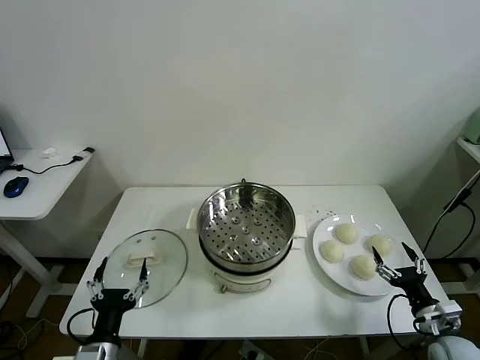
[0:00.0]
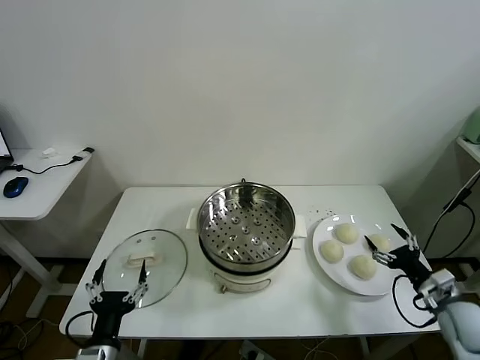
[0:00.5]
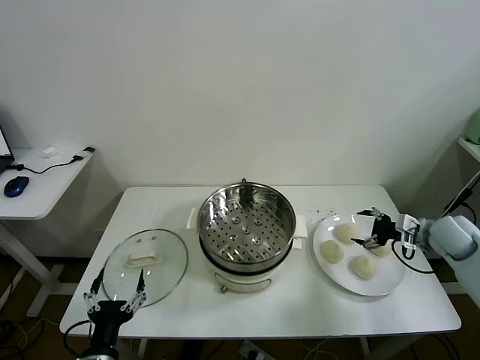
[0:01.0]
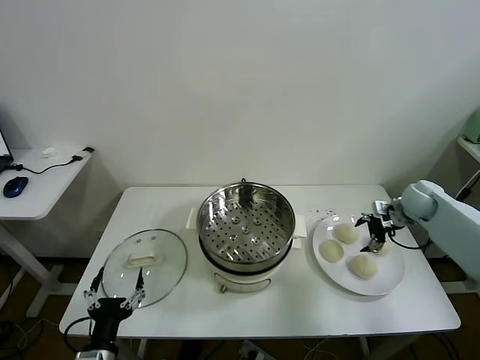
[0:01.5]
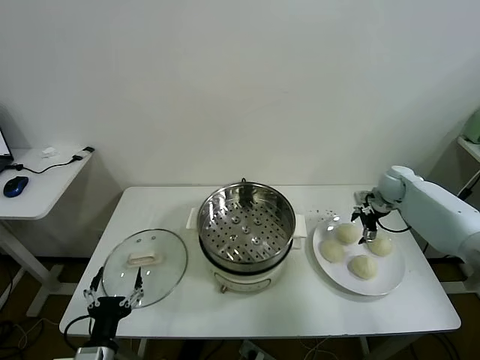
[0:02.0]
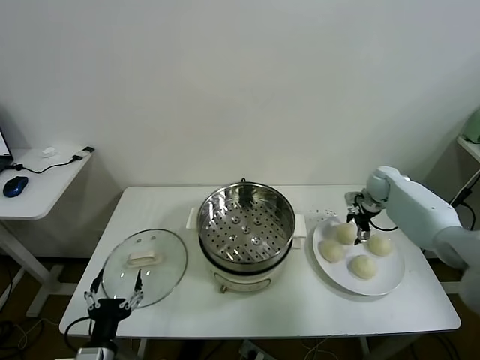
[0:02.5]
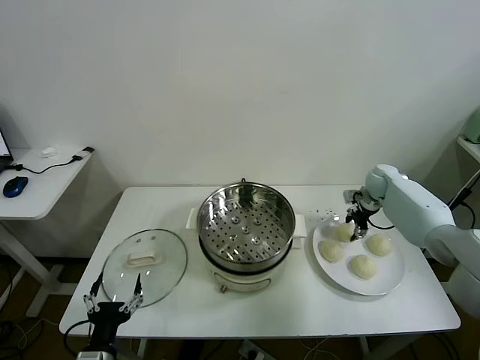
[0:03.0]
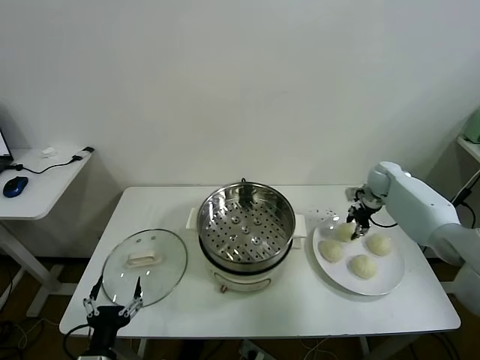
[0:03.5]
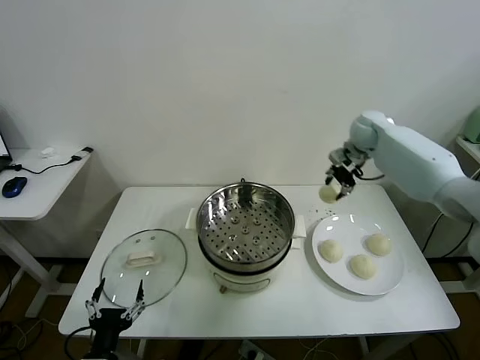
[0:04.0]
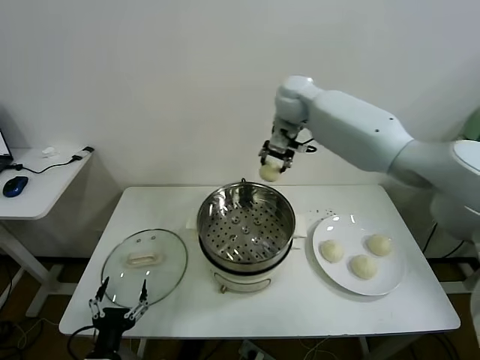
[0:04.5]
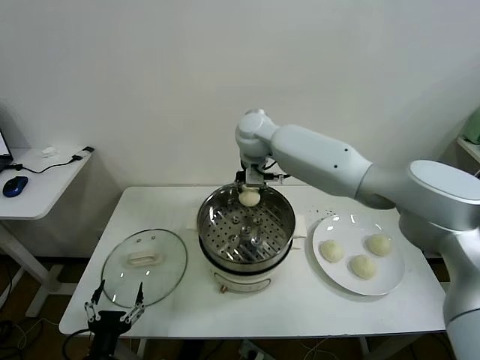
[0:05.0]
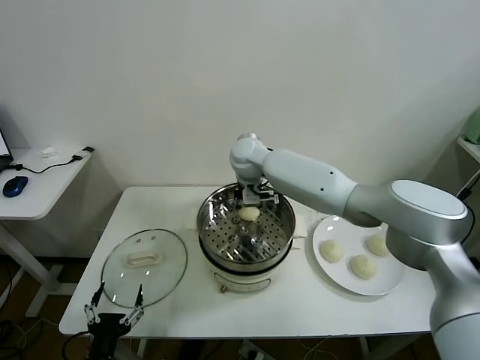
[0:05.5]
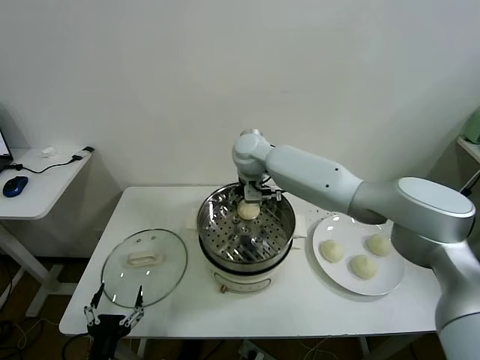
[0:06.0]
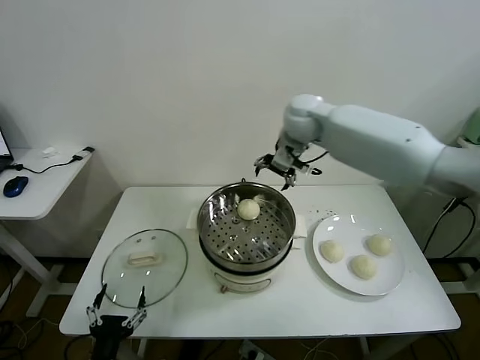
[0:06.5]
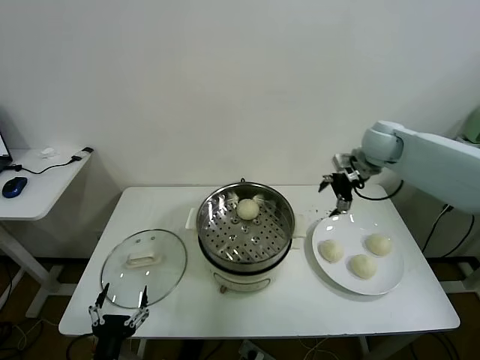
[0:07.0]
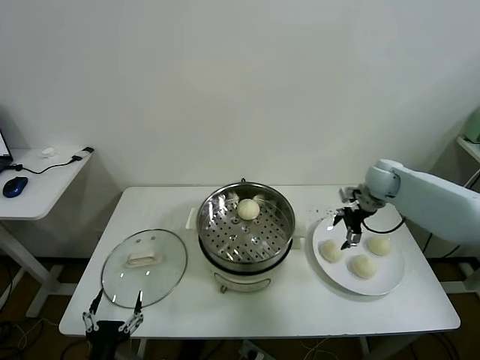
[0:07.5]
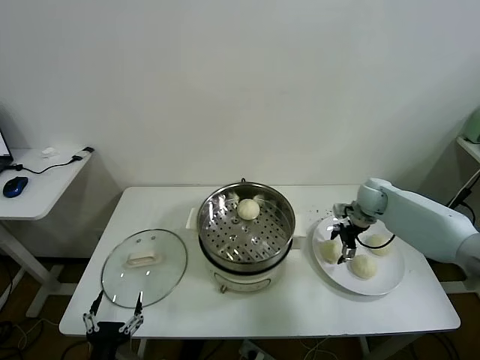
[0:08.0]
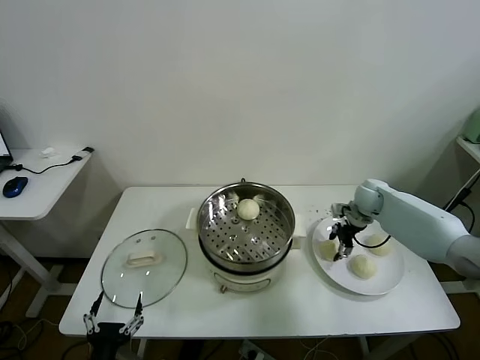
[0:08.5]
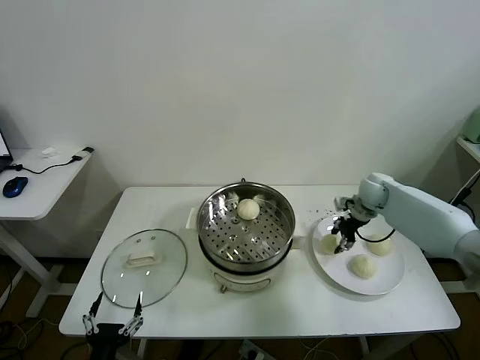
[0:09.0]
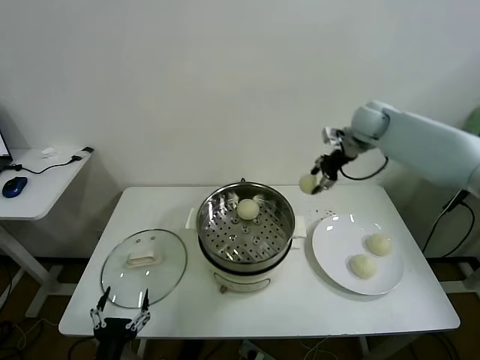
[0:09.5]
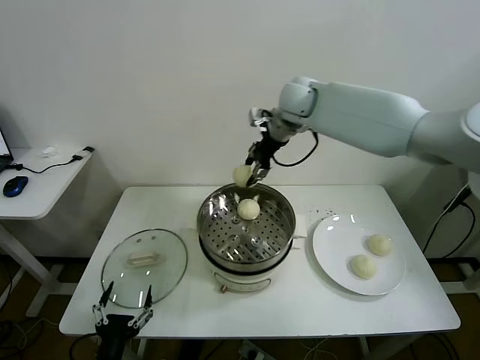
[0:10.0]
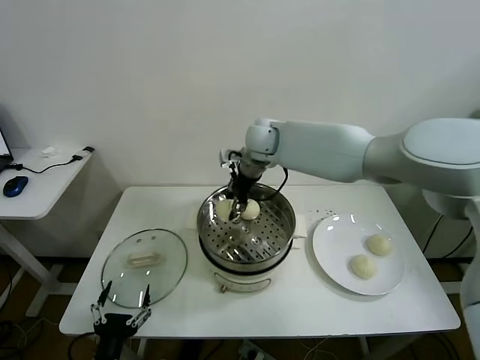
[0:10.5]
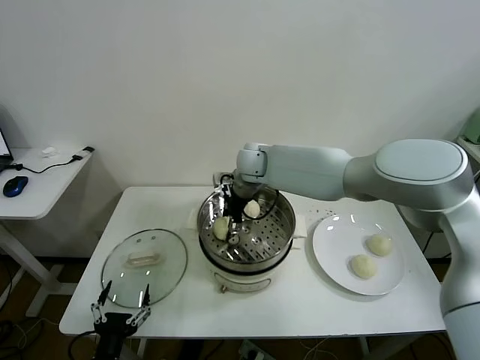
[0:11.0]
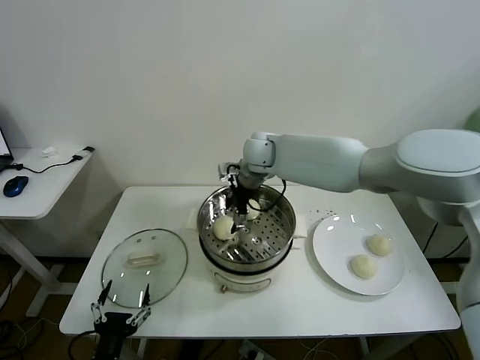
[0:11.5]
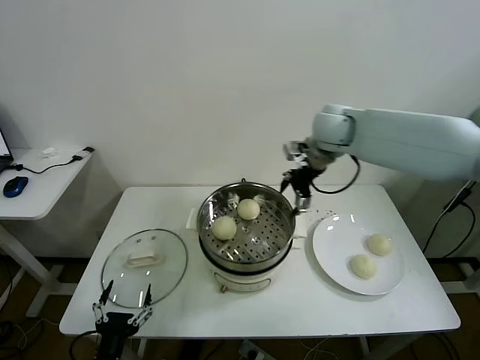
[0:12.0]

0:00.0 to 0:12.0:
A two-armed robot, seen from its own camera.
Task of the whole recording: take steamed baozi put them in steamer.
Step, 0:00.0 to 0:02.5: Grasp the baozi in the plate with right gripper.
Step, 0:03.5 to 0:05.5: Place the baozi on the steamer with right gripper.
Step, 0:06.0 to 0:08.5: Grasp the baozi in the plate with right gripper.
Step, 0:09.0 to 0:11.0: Place the baozi on the steamer with right gripper.
0:02.0 to 0:04.0: The right gripper shifts roughly 20 cm upward and to the left, and closes up.
0:04.0 to 0:06.0: The right gripper goes some 25 cm to the left, and opens.
0:06.0 to 0:08.0: The right gripper moves to the right and downward, roughly 35 cm.
0:08.0 to 0:10.0: The right gripper is displaced to the left and upward by some 35 cm, and closes its fingers.
0:10.0 to 0:12.0: The right gripper heads to the right and backward, covering approximately 15 cm, and opens its fingers.

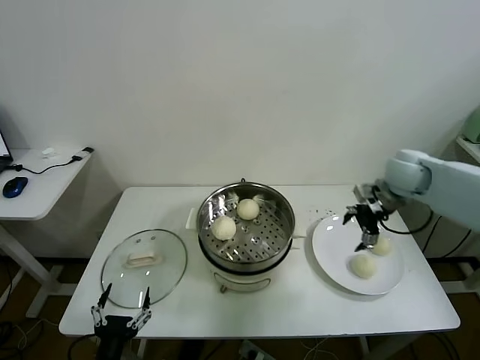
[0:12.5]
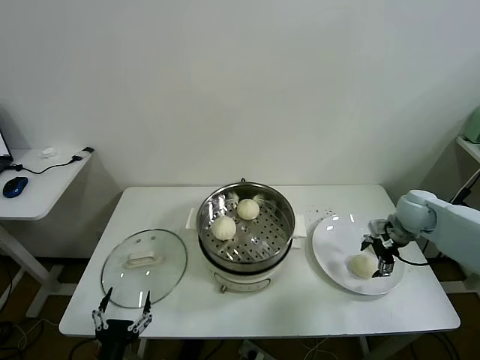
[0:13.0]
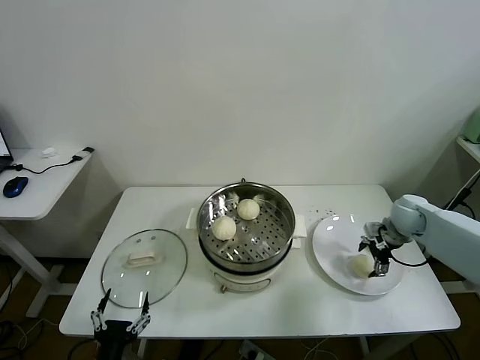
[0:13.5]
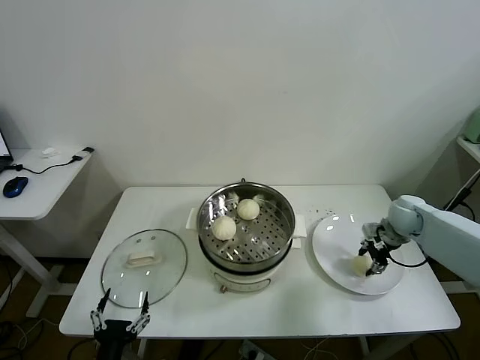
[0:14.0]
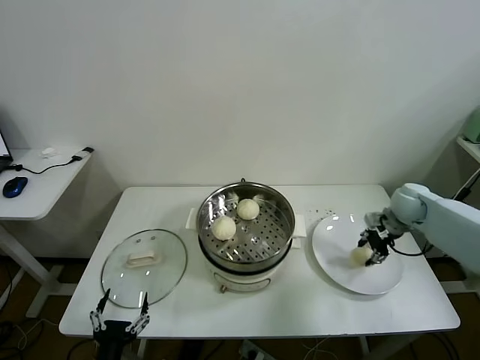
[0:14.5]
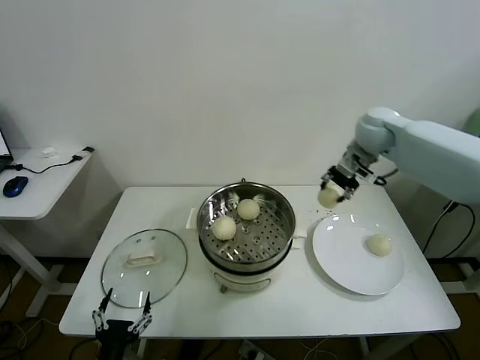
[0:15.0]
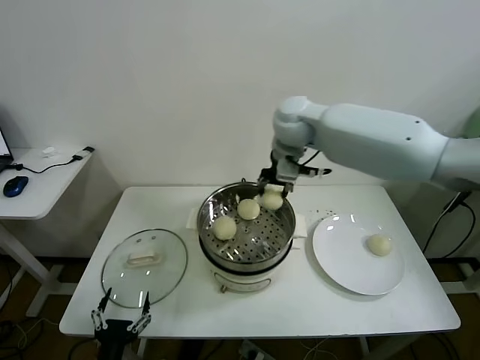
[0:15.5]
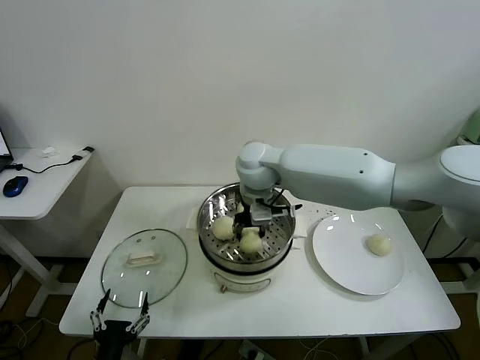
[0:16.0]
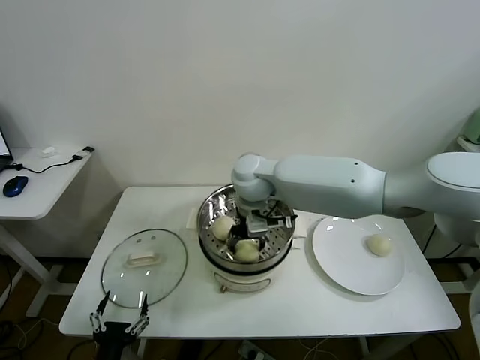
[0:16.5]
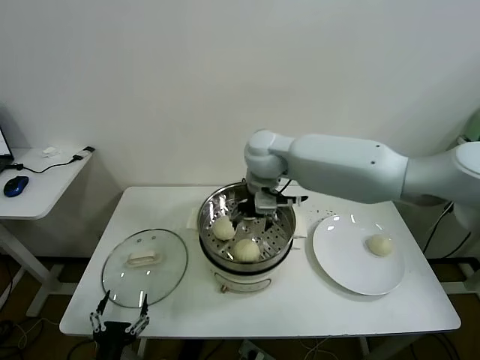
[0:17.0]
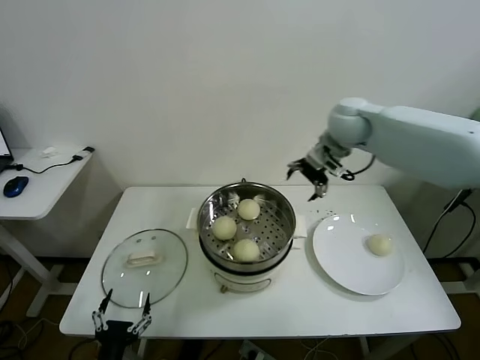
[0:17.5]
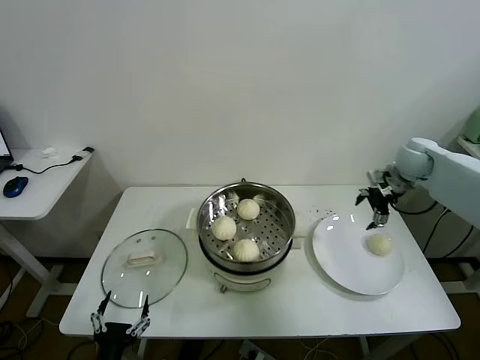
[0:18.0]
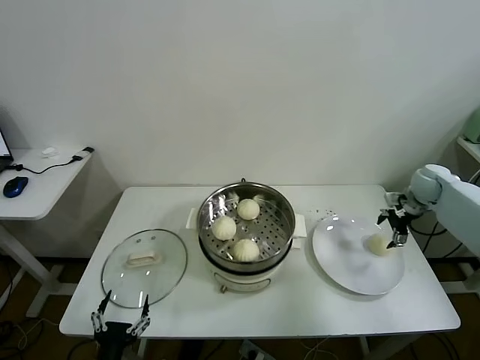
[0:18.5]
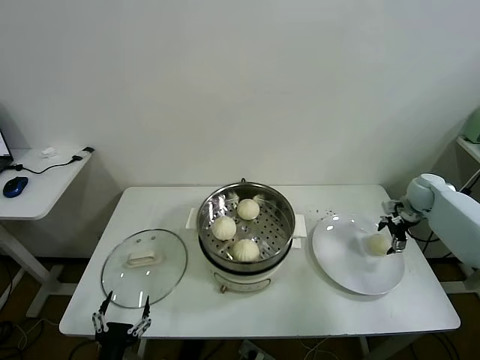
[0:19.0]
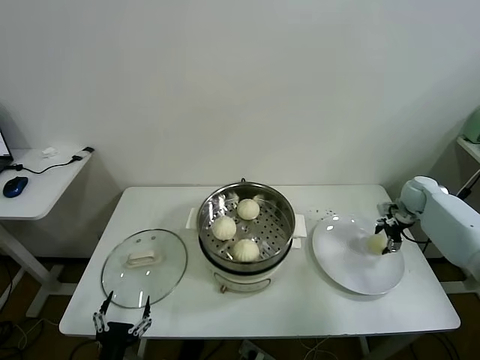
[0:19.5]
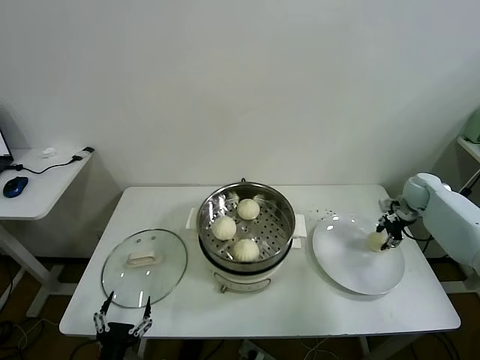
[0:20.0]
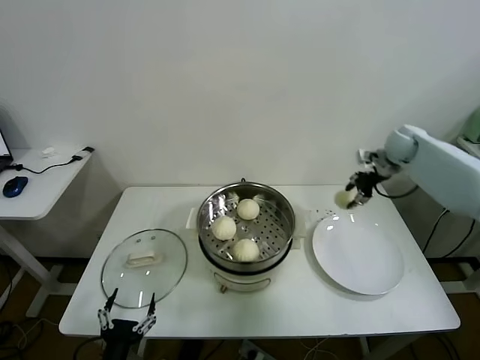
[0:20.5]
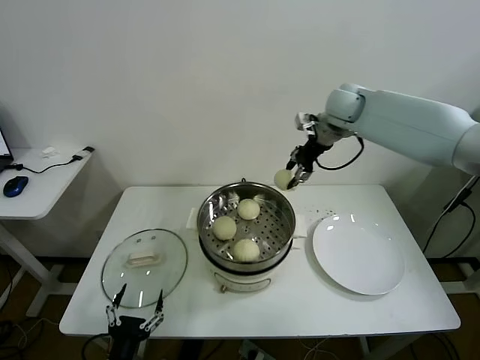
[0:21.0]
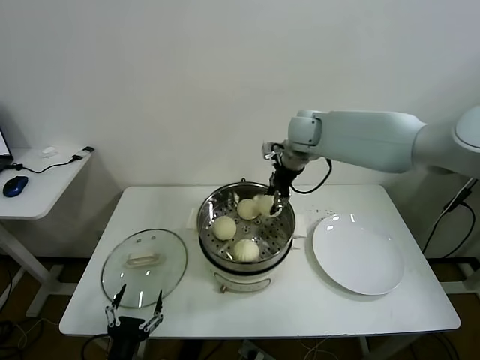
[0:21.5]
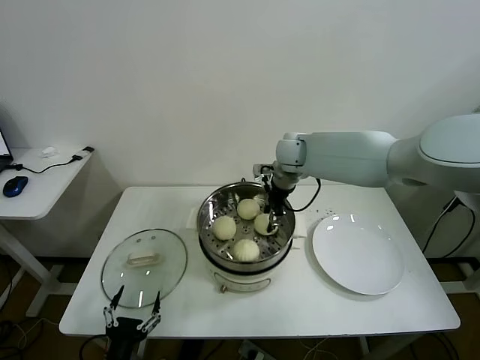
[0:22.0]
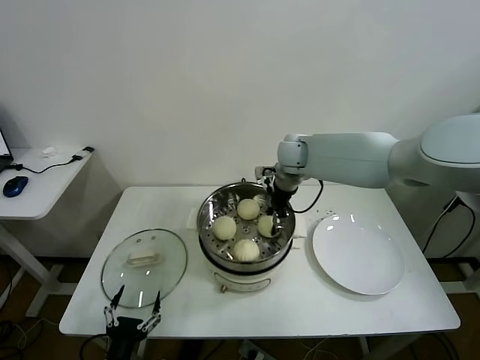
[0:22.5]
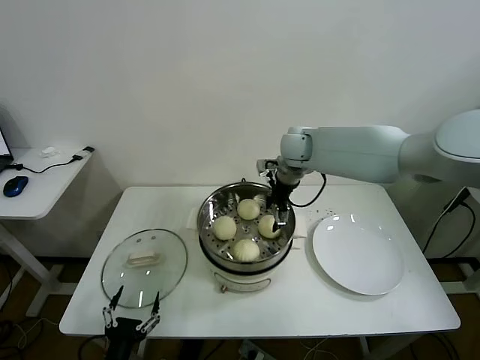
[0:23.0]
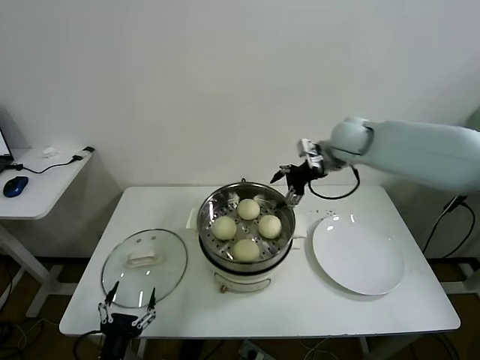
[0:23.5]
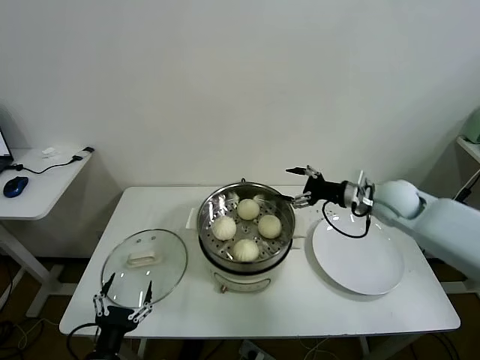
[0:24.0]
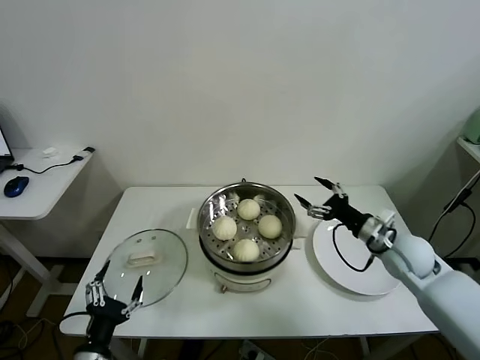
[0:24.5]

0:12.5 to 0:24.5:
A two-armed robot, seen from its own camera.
Task of the whole recording: take steamed baozi put them in steamer.
Step, 0:14.0 to 0:16.5: Place the baozi on the steamer with right gripper.
Step, 0:17.0 to 0:19.5: Grasp the baozi in the plate with right gripper.
Step, 0:20.0 to 0:22.5: Place the baozi on the steamer with right gripper.
0:12.5 to 0:14.5: The right gripper goes roughly 10 cm downward, and closes.
0:14.5 to 0:16.5: The right gripper shifts approximately 40 cm to the left, and opens up.
0:16.5 to 0:18.5: The right gripper shifts approximately 50 cm to the right.
0:18.5 to 0:20.5: The right gripper shifts about 15 cm upward, to the left and forward, and closes.
0:20.5 to 0:22.5: The right gripper heads to the left, covering about 25 cm.
0:22.5 to 0:24.5: The left gripper shifts by some 5 cm, while the right gripper goes approximately 35 cm to the right, backward and downward, and opens its fingers.

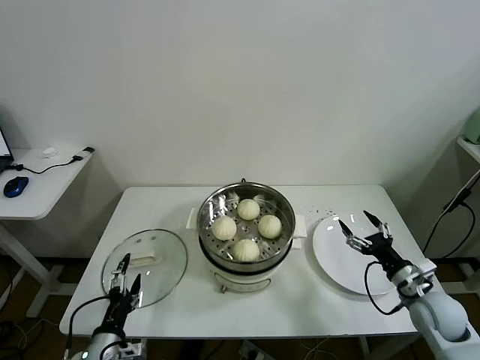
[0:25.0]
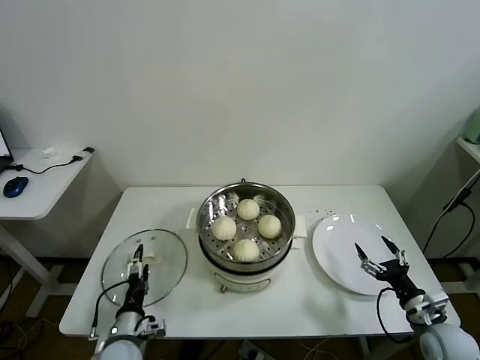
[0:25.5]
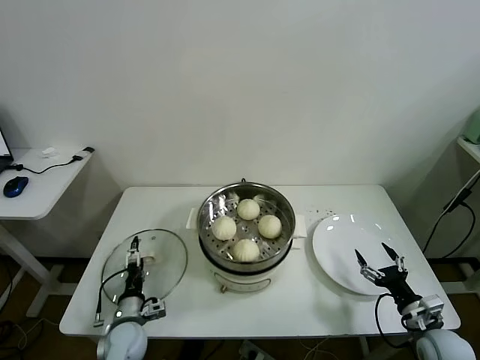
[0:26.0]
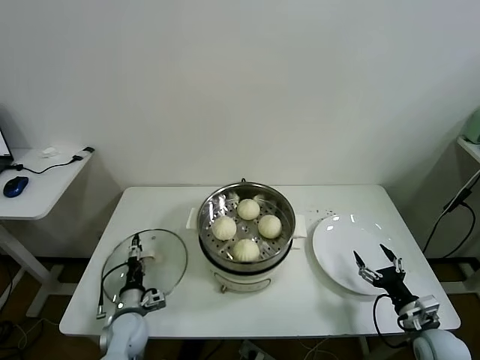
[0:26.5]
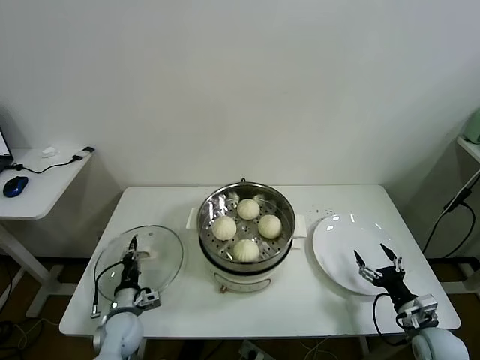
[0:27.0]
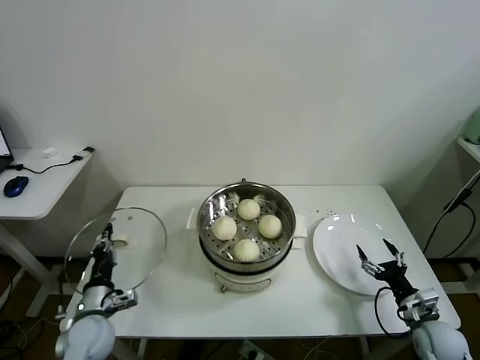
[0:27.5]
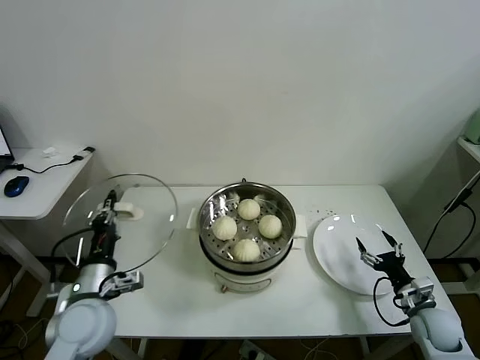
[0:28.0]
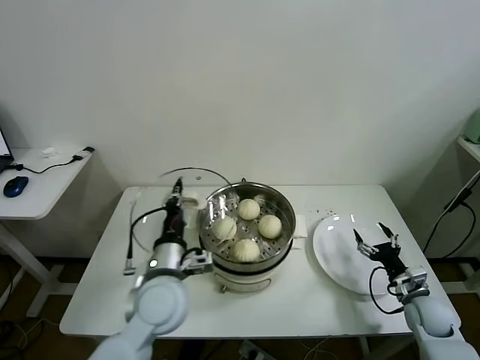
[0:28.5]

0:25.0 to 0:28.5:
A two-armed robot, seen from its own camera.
Task of the whole recording: take steamed baozi put them in steamer.
Step, 0:25.0 to 0:27.0: Grasp the pot lid with left gripper.
0:25.0 to 0:27.0: The left gripper shifts some 15 cm forward and downward, and closes its fingers. Meanwhile the right gripper shifts approximately 10 cm downward and backward.
0:27.0 to 0:28.5: The right gripper travels forward by about 5 cm, while the left gripper shifts about 25 cm upward and to the right.
